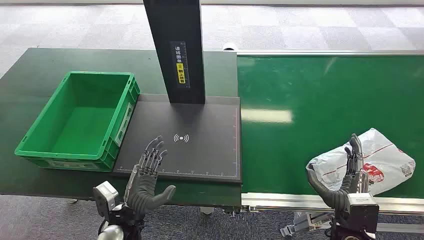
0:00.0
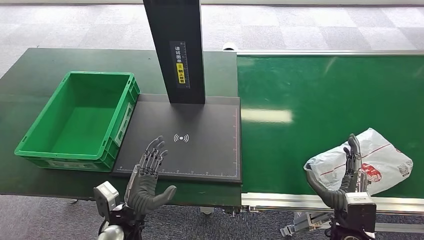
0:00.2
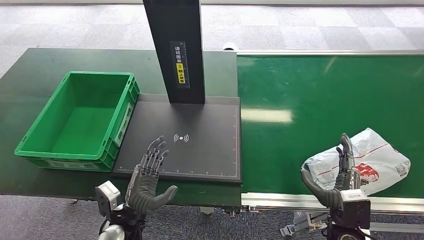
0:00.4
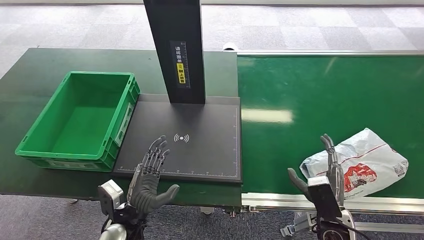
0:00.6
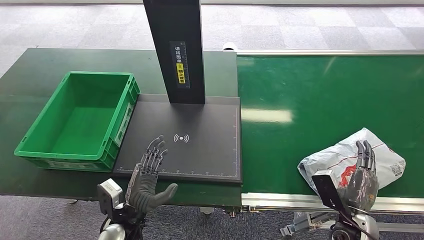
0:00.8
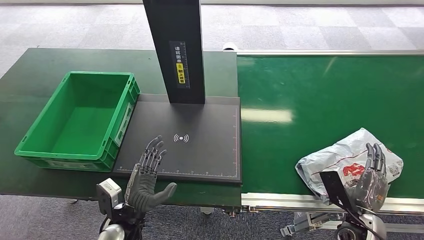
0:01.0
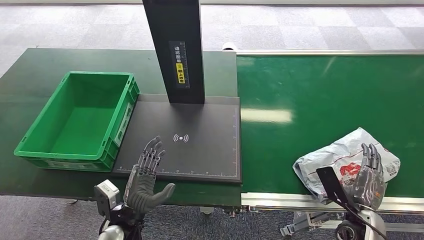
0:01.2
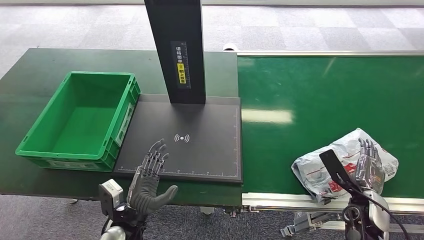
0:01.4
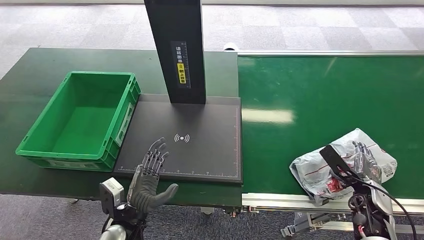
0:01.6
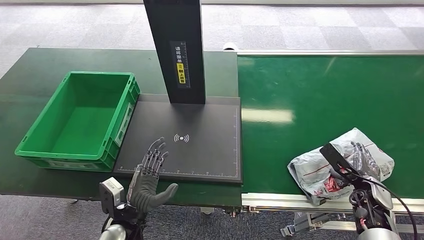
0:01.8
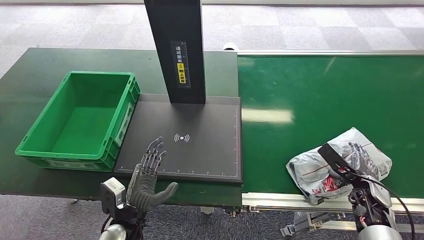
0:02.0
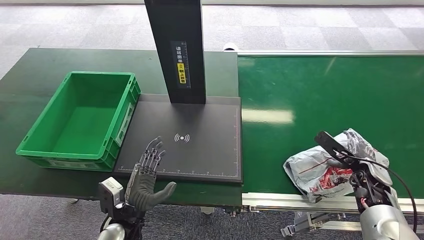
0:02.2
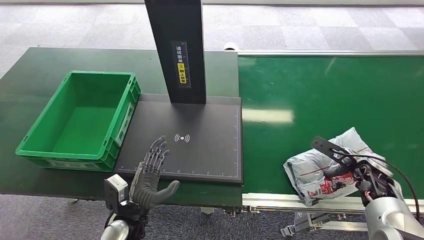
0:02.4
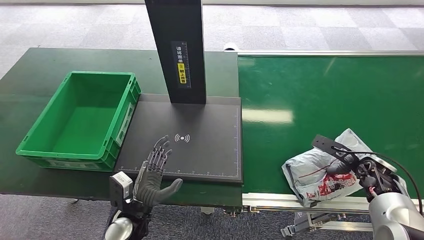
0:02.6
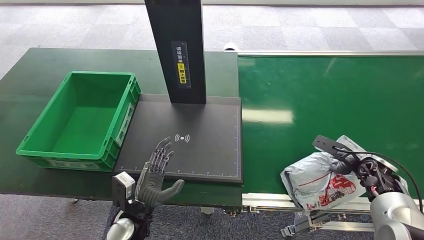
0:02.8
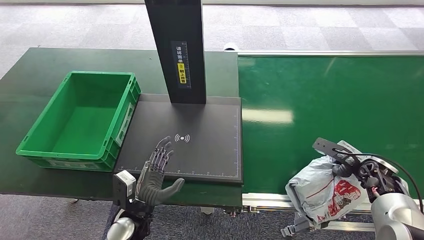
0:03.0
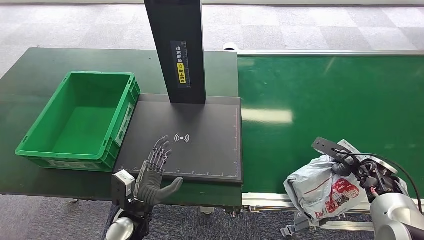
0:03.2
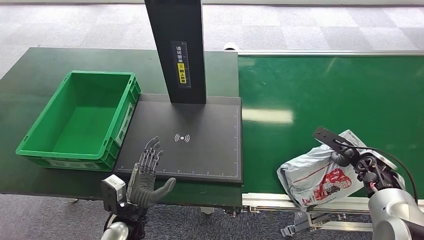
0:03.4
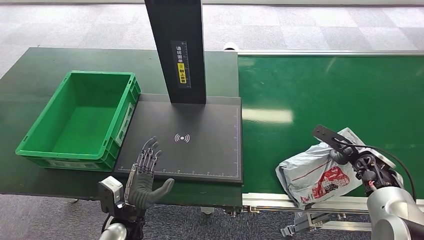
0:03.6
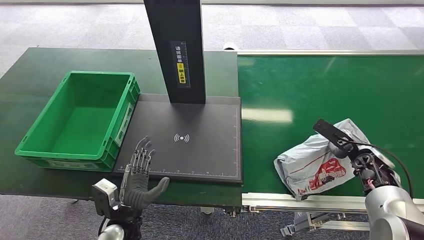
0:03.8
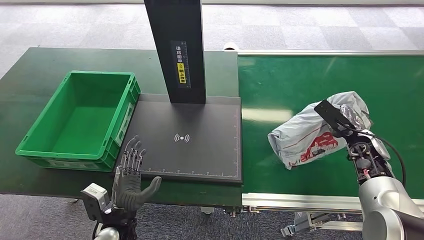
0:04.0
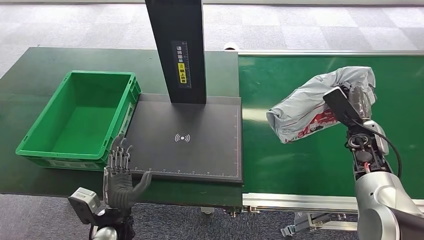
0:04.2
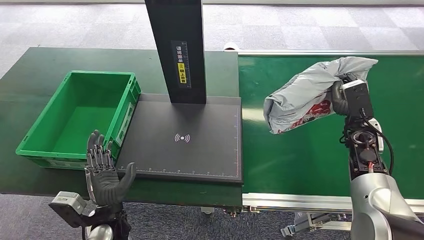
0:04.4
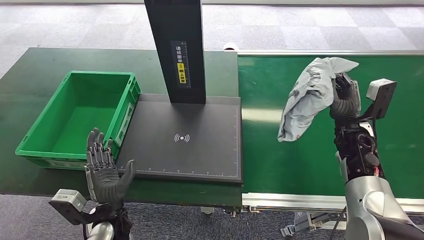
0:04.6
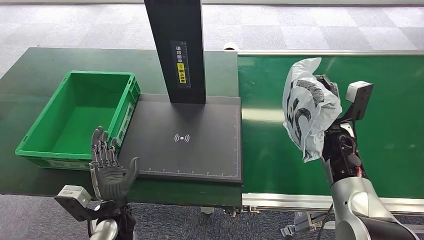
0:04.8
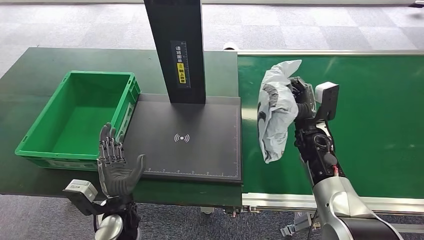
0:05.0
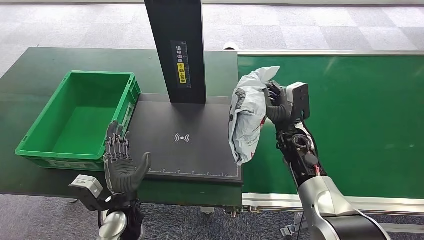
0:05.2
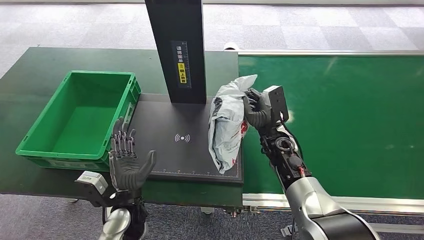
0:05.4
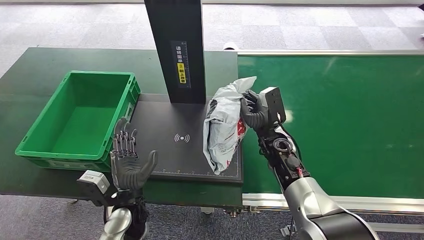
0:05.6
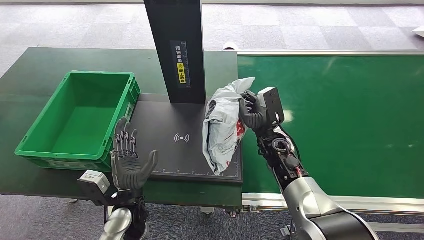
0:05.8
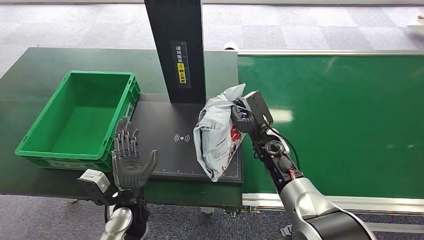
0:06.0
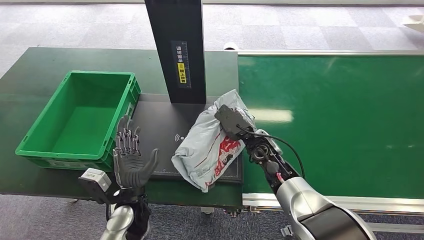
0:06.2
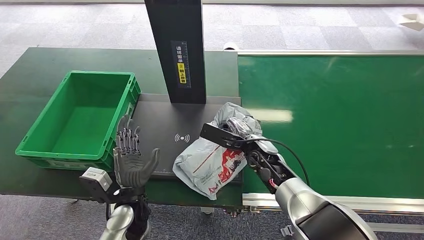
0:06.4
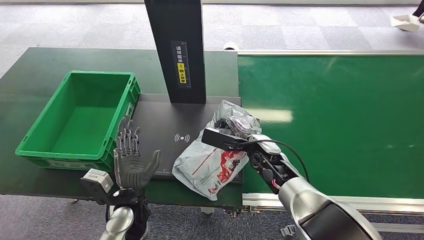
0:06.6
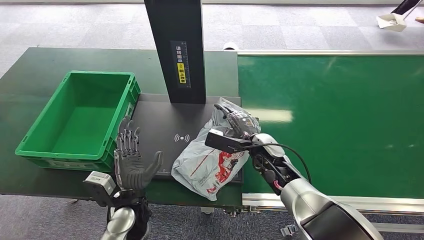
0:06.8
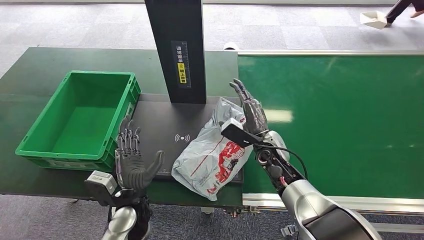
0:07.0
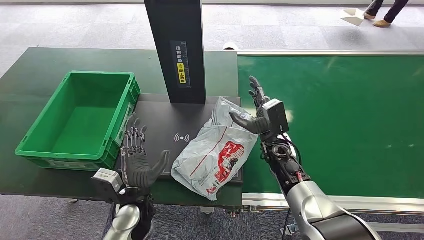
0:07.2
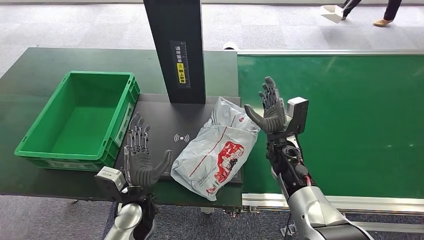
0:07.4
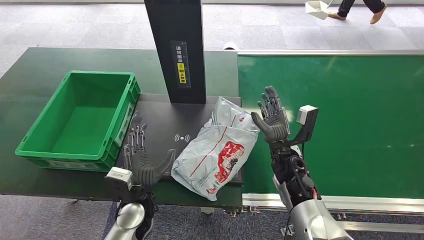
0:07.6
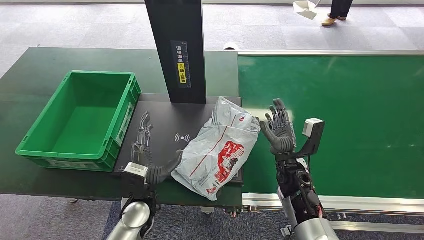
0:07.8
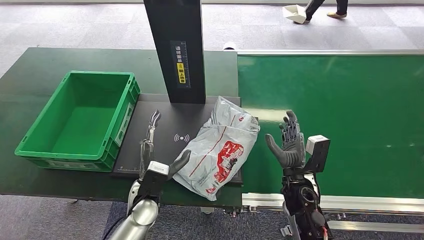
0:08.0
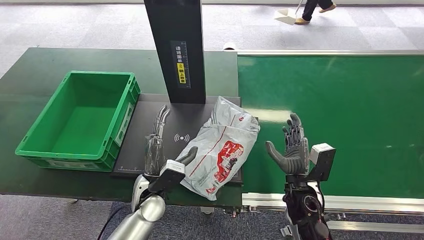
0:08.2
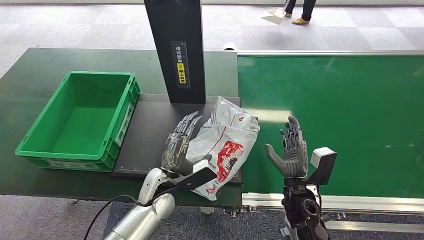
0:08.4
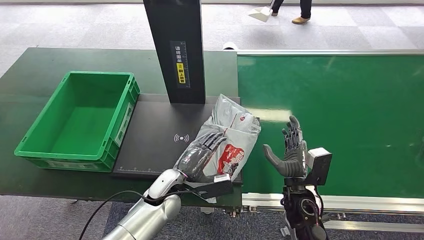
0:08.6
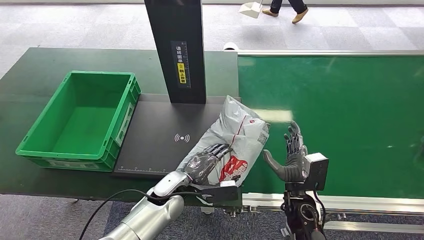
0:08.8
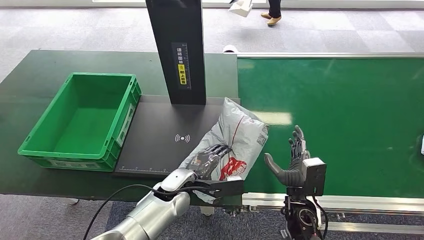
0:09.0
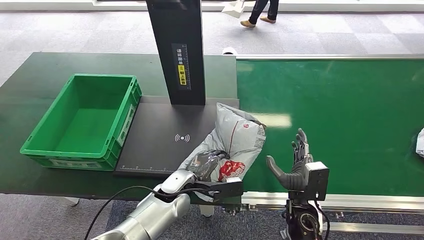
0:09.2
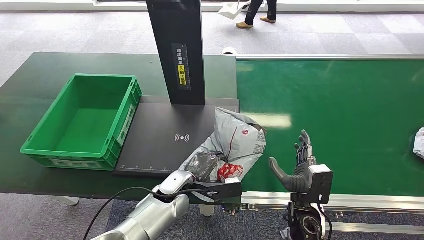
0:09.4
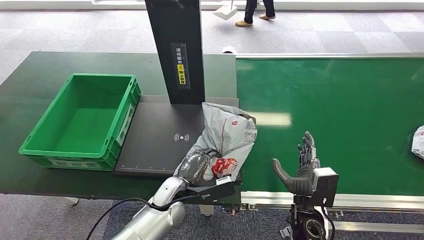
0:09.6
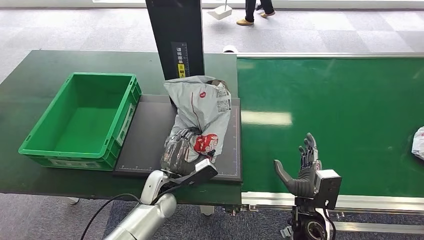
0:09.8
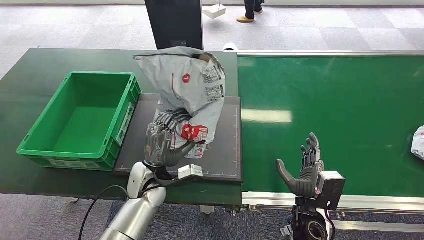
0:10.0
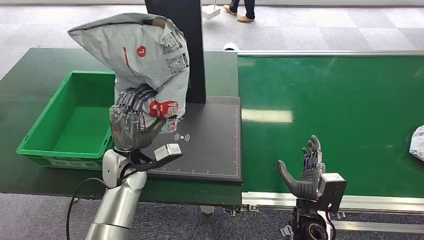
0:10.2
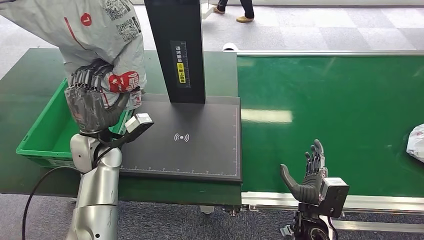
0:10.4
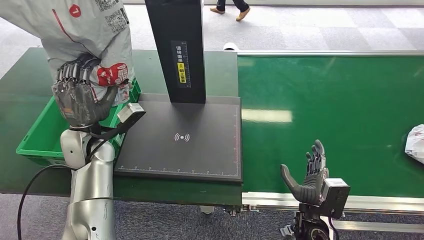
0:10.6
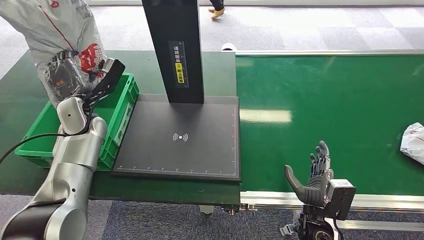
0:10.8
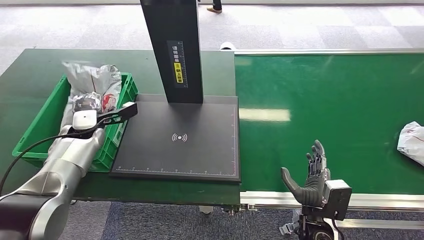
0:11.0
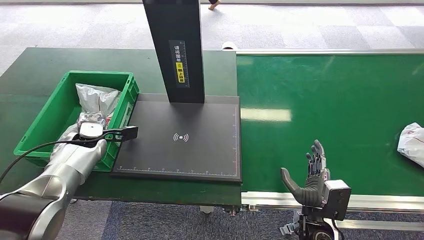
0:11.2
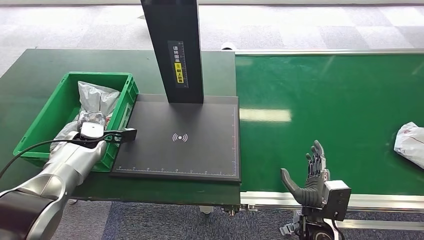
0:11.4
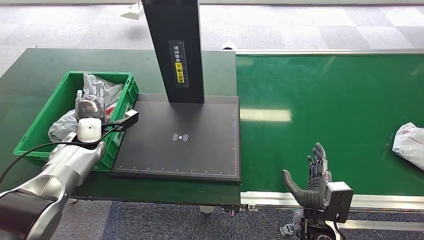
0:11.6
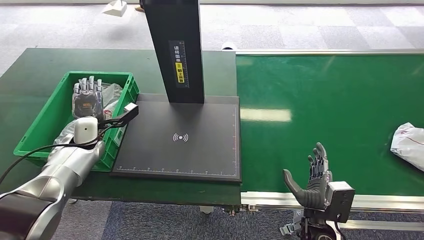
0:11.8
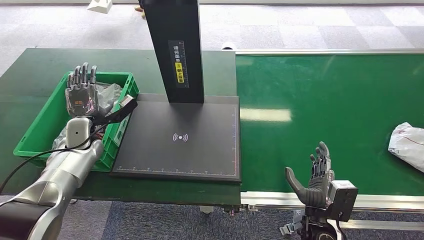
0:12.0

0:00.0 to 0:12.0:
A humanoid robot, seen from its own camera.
Task of the whole recording: Weigh the package on the weighing device and place it in the left basket.
Step, 0:00.0 to 0:04.0: Pick up the package from the conveyor belt.
Step, 0:04.2 to 0:07.2: Place the package onto the inbound machine.
Step, 0:07.4 to 0:10.4: Pick up the package from the inbound machine.
Step, 0:10.6 to 0:12.0: Place the package into the parcel locker.
0:01.6 to 0:03.0: The right hand goes roughly 5 cm forward.
0:03.0 to 0:04.4: The right hand travels upward, to the left and forward by roughly 10 cm.

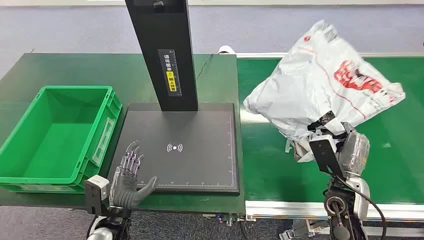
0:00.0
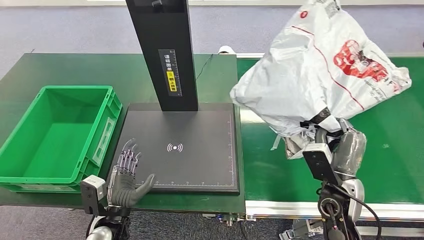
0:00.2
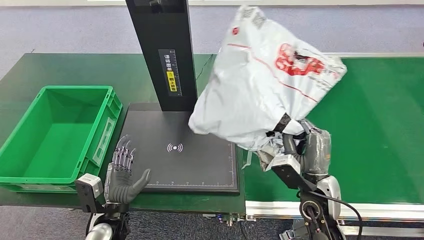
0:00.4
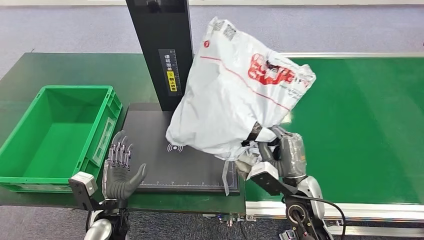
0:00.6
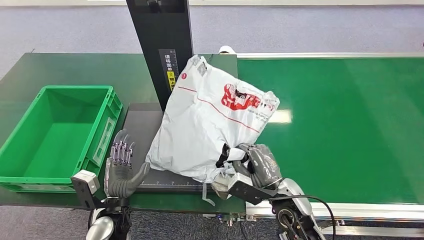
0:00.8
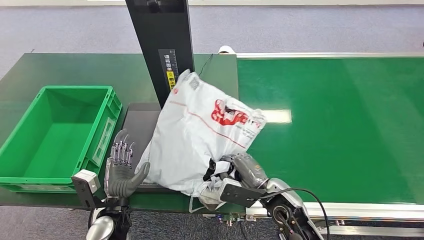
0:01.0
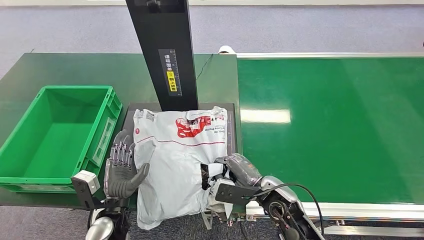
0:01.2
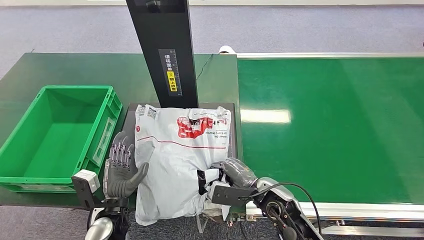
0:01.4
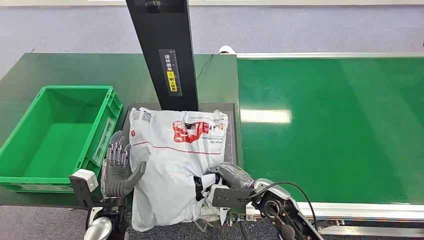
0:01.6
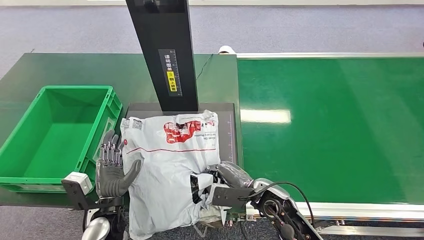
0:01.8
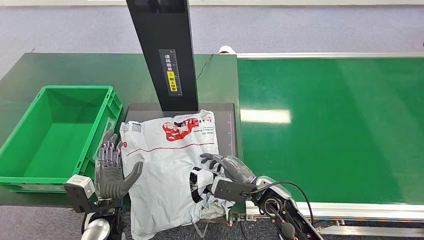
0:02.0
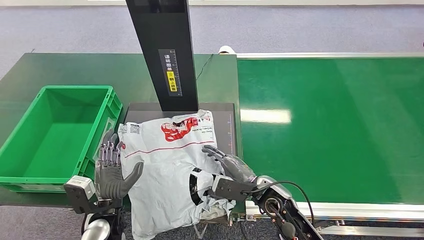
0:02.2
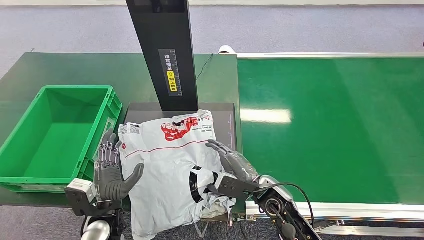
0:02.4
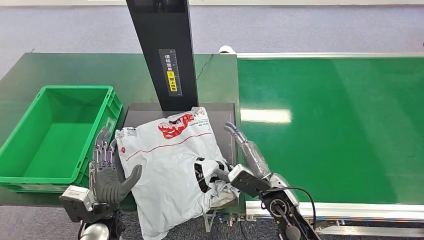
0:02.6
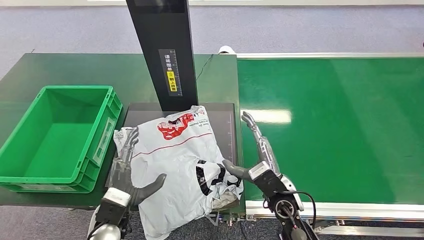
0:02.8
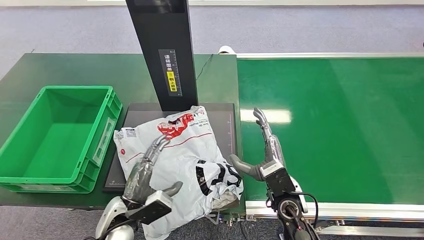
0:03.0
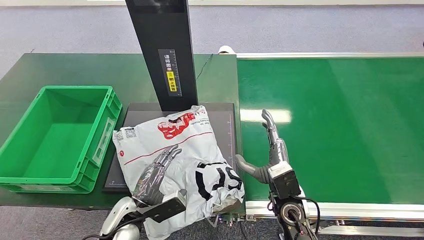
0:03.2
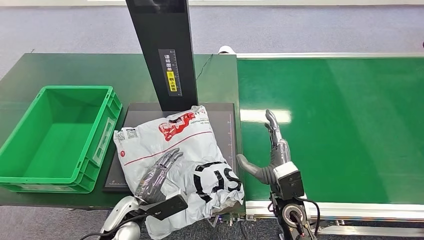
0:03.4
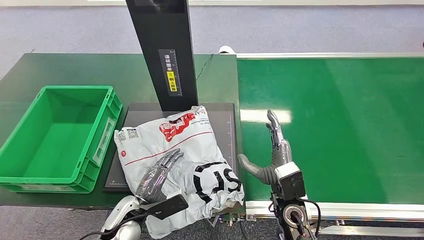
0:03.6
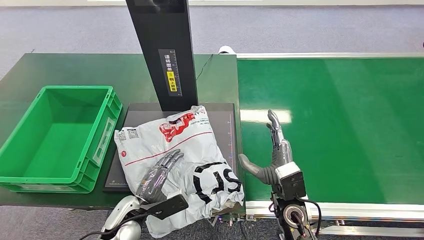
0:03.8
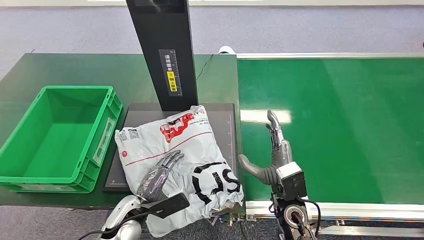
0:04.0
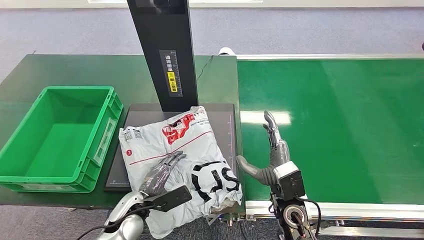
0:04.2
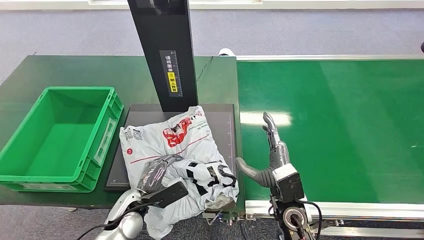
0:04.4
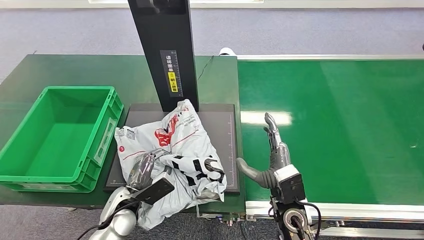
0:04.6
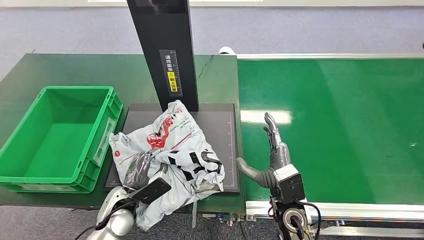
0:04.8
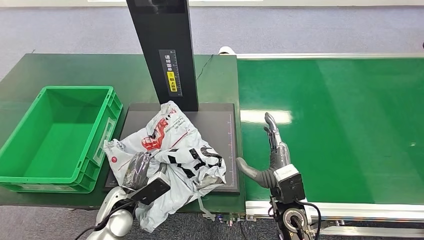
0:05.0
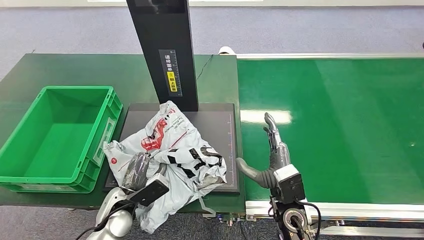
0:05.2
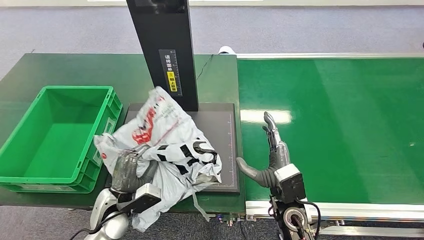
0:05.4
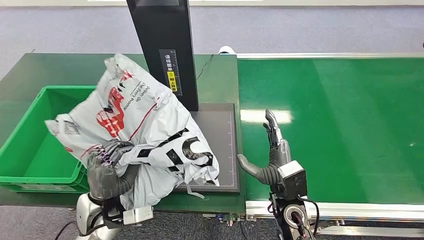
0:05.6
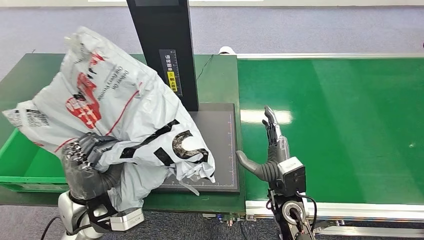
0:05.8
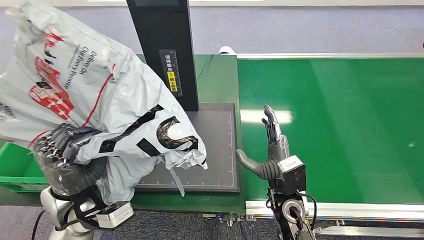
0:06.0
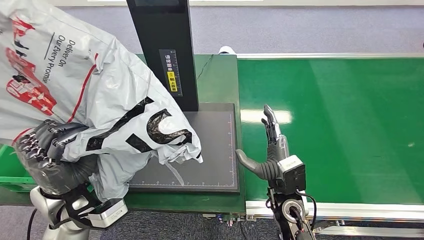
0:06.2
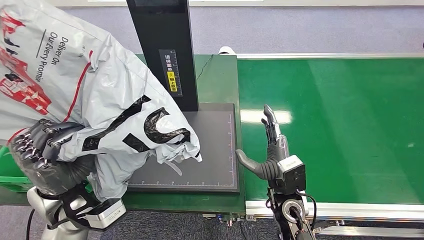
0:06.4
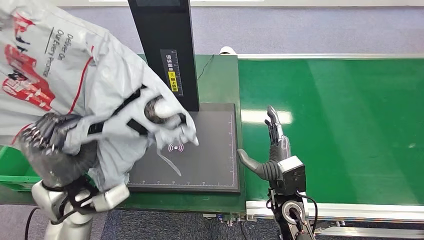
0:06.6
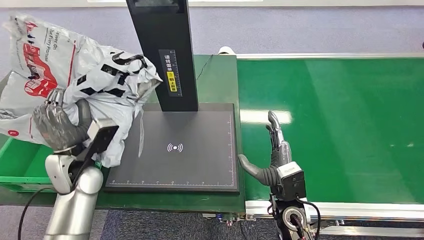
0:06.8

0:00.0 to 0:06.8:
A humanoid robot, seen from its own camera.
Task of the whole recording: Weigh the package on the weighing device and place it in the left basket.
Step, 0:00.0 to 0:00.2: Pick up the package from the conveyor belt.
Step, 0:02.0 to 0:02.2: Place the package onto the inbound machine.
0:02.8 to 0:04.0: The left hand changes place by roughly 5 cm.
